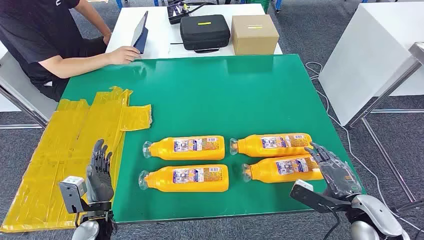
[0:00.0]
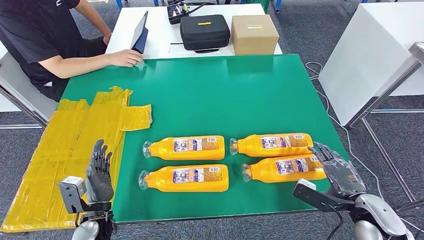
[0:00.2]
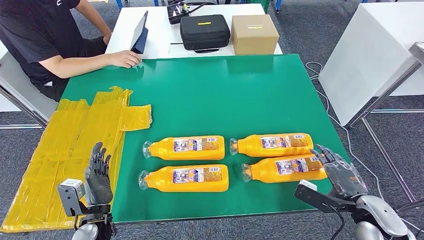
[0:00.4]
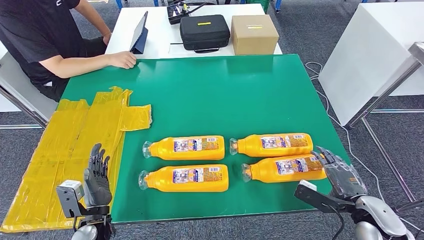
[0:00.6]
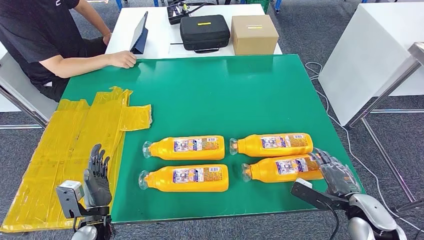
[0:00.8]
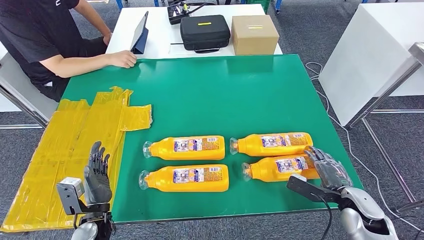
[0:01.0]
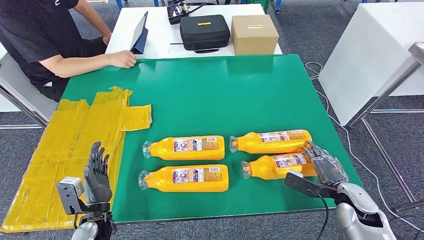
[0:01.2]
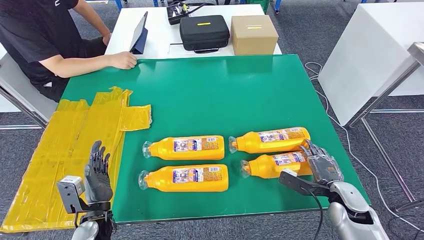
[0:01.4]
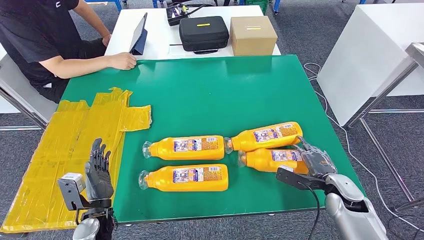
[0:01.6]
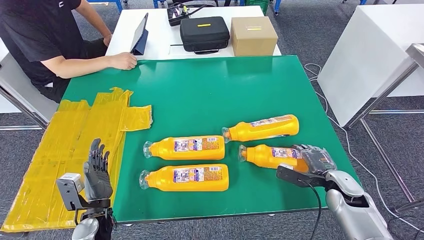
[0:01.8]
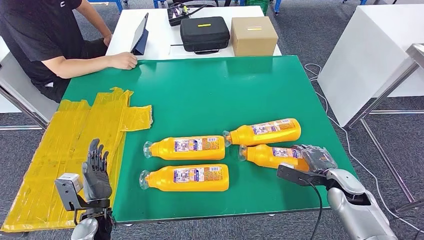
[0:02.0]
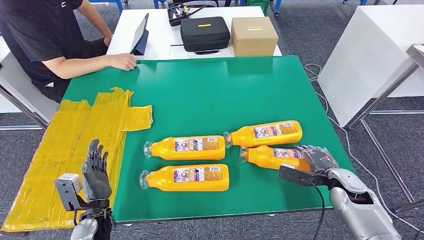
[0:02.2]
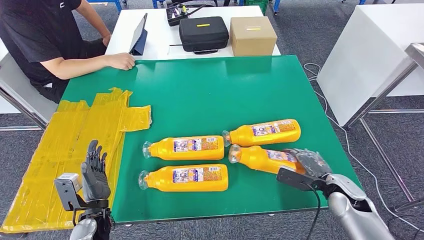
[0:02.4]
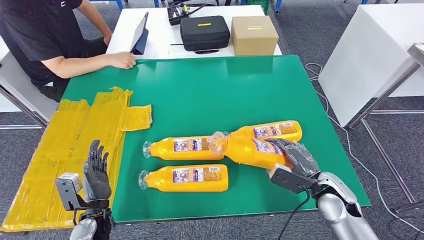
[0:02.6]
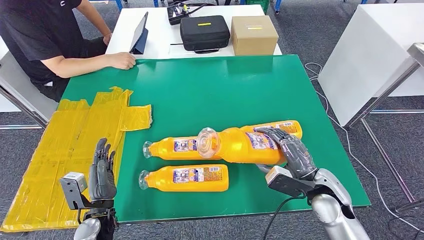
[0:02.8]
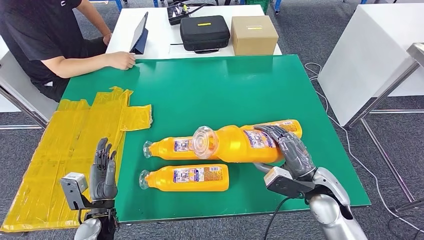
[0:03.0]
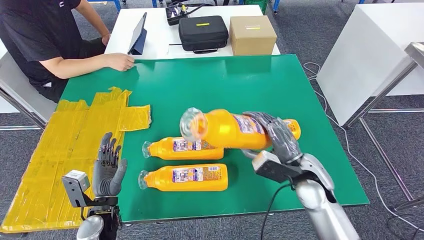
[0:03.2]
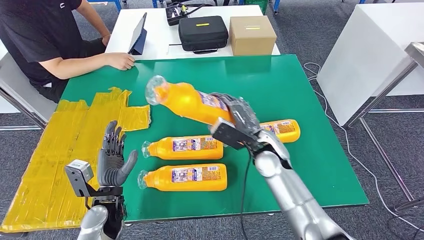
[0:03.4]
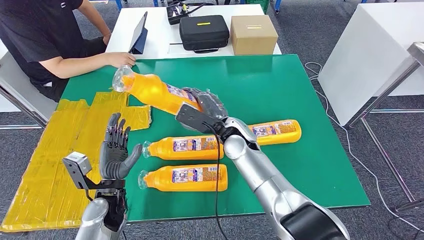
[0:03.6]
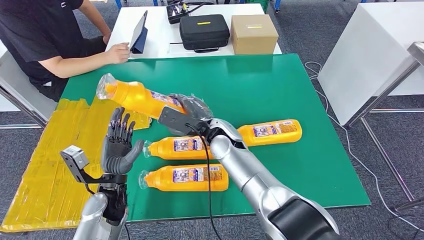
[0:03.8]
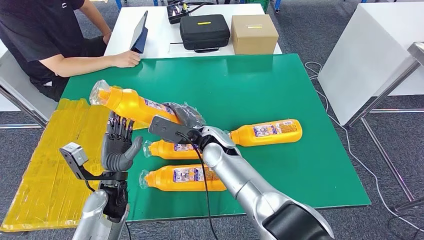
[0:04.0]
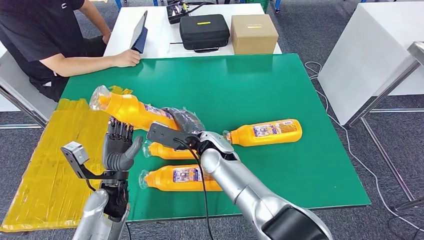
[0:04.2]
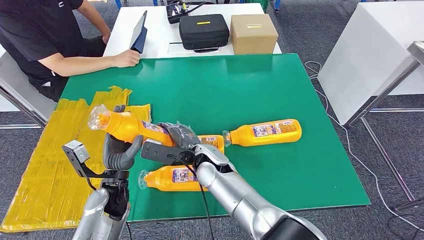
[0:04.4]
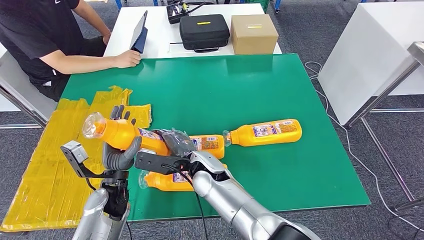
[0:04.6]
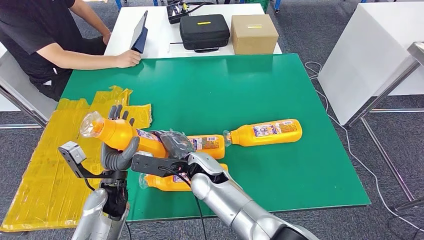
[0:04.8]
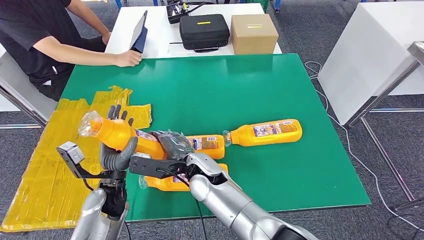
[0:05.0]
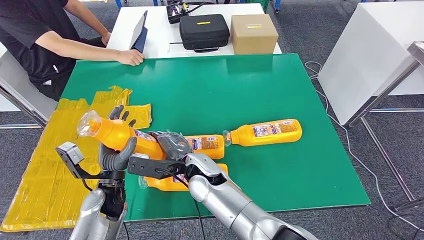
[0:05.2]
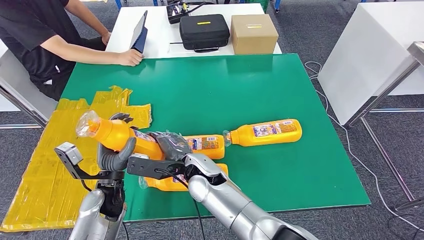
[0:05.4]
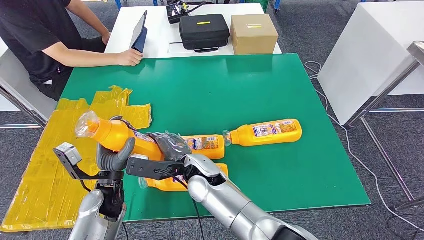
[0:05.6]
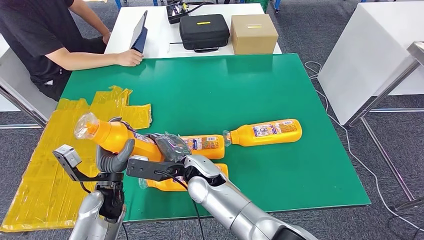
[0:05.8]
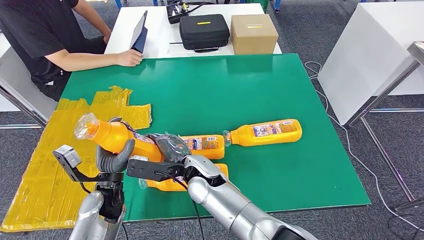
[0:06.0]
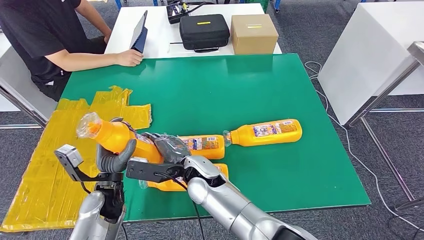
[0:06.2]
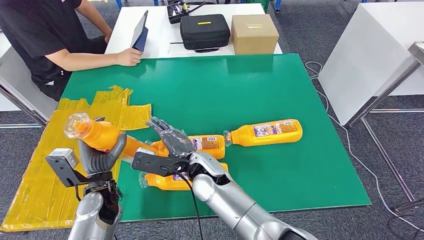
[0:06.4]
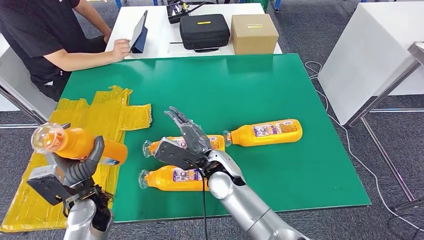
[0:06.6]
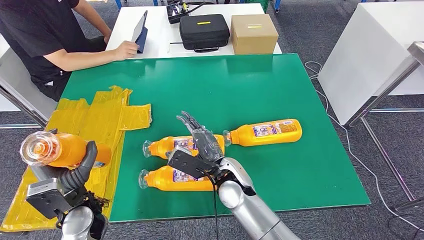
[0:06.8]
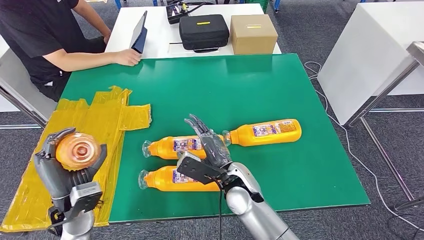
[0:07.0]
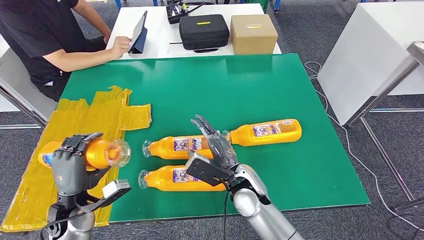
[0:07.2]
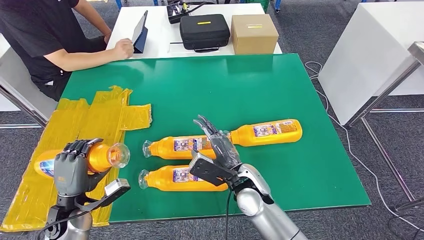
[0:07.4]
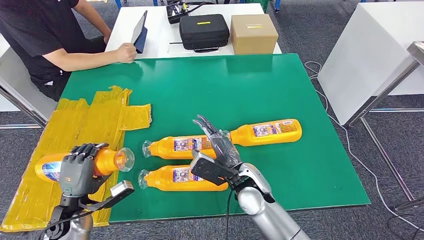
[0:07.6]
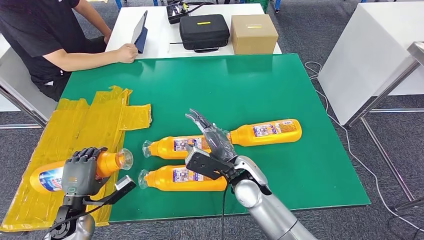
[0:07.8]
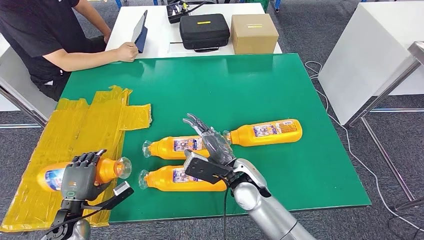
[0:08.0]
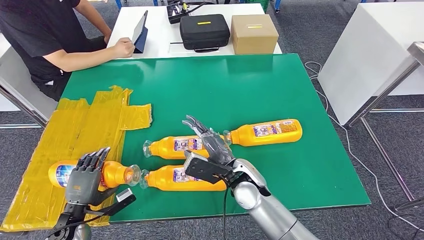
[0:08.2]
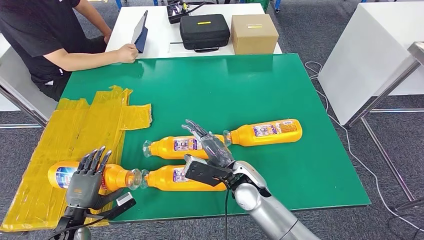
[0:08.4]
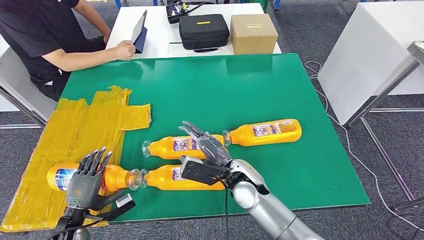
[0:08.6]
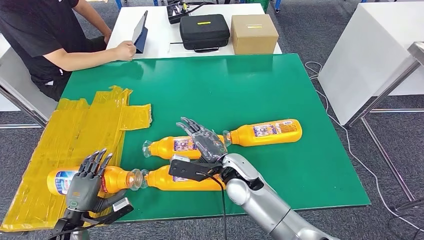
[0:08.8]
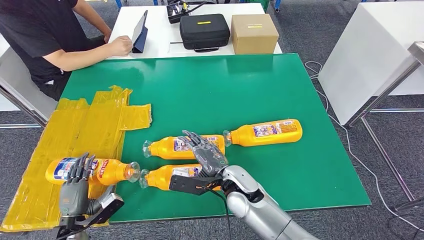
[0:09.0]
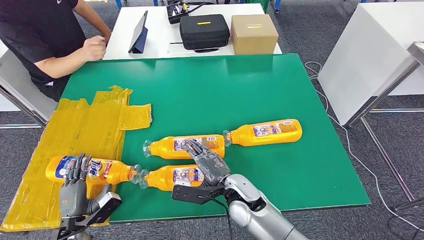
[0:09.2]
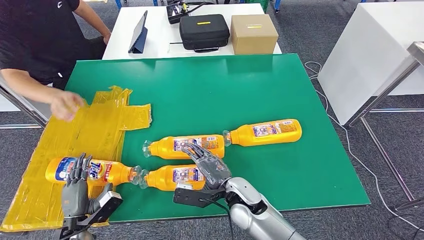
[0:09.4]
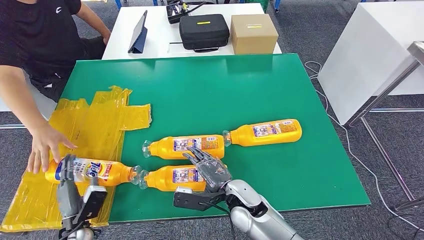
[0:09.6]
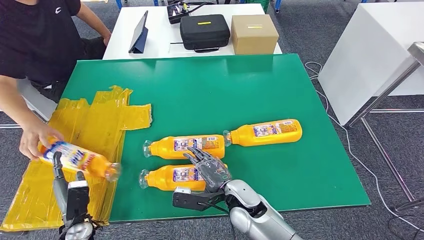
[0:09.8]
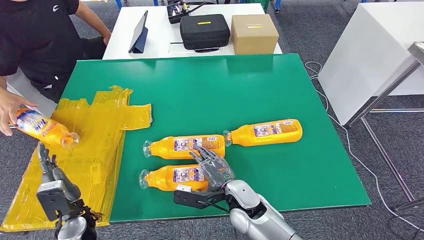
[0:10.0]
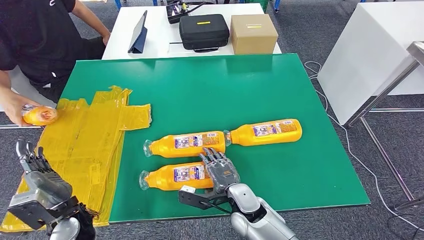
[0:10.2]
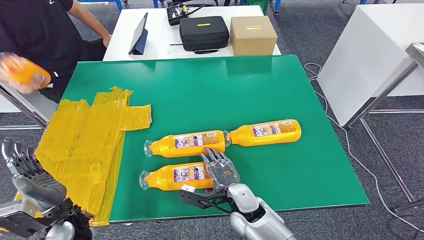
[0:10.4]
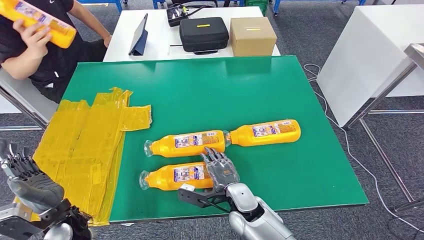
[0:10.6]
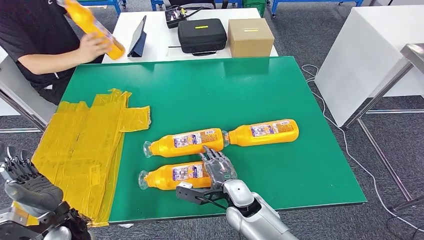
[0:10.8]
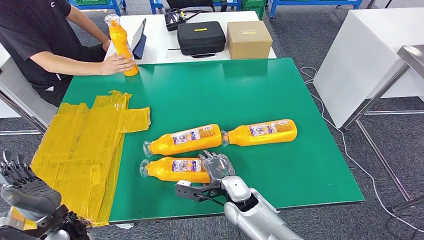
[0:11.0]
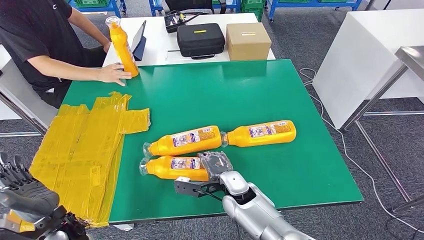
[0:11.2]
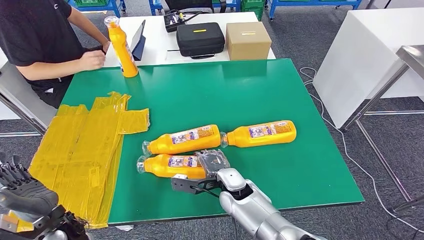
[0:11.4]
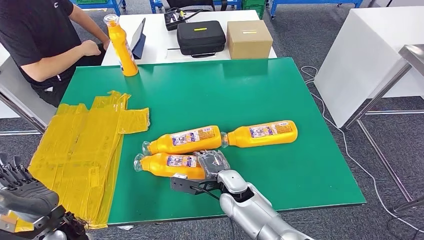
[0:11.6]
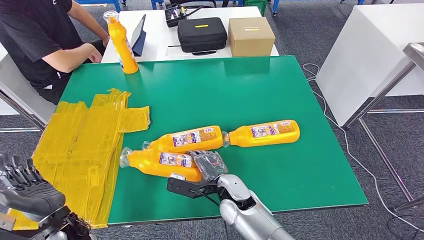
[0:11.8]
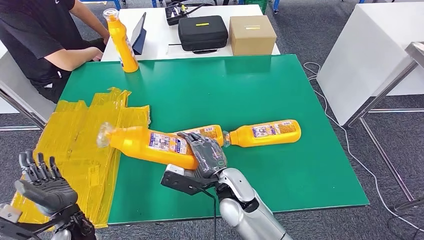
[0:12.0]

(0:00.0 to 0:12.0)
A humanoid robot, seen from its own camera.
Step, 0:00.0 - 0:03.8: Take the bottle from the table.
Step, 0:04.0 - 0:10.0: Flip the bottle to face forward.
0:01.6 - 0:03.0: The right hand moves to the left and upward, about 15 cm.
0:04.4 - 0:06.0: The hands stay close to where they were, moving slightly.
0:06.0 - 0:07.6: The left hand moves to the left, some 10 cm; the right hand is displaced to the right by approximately 10 cm.
0:07.6 - 0:09.0: The left hand heads downward, covering some 10 cm.

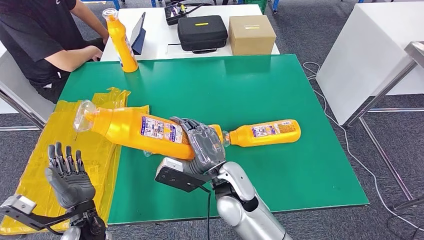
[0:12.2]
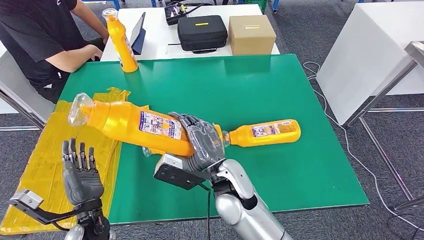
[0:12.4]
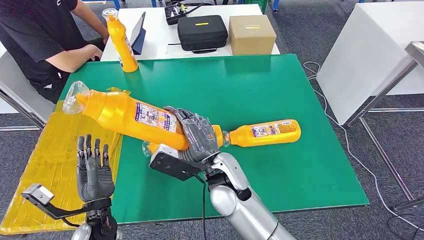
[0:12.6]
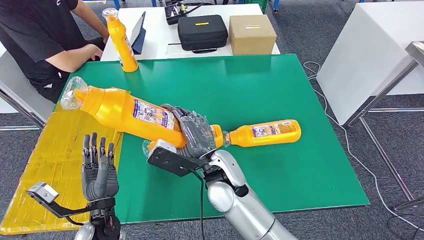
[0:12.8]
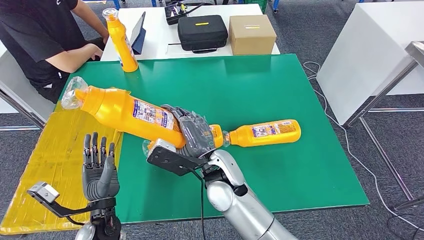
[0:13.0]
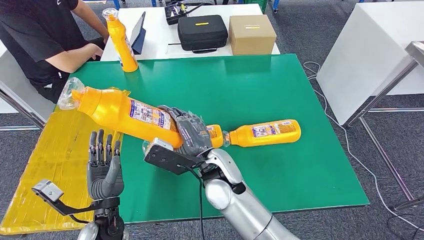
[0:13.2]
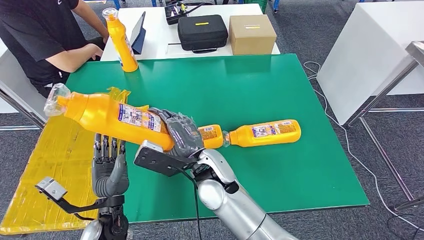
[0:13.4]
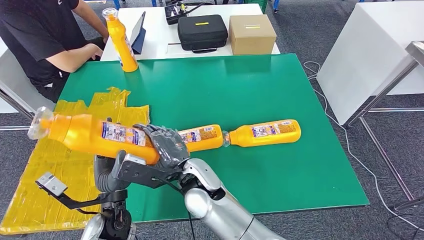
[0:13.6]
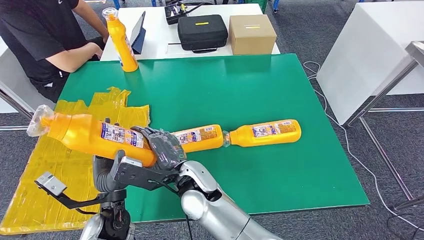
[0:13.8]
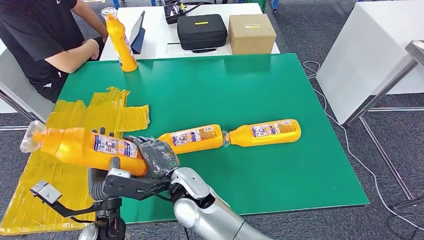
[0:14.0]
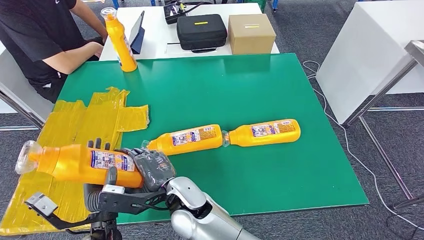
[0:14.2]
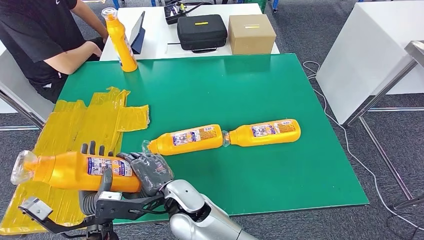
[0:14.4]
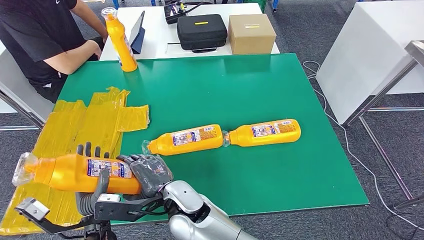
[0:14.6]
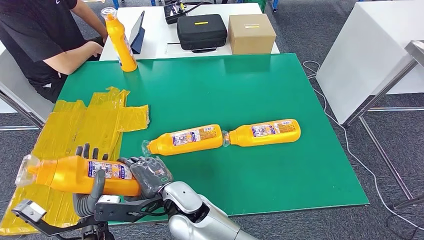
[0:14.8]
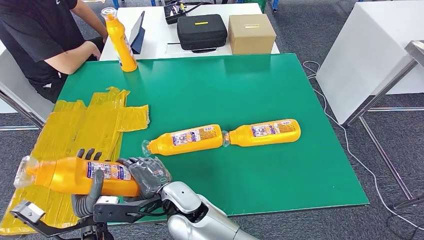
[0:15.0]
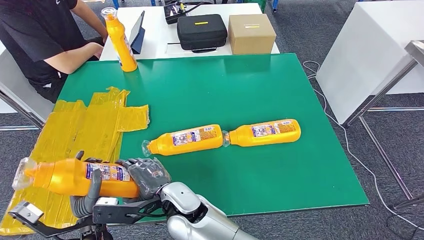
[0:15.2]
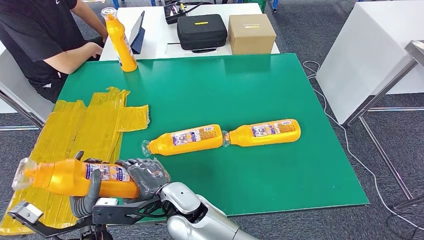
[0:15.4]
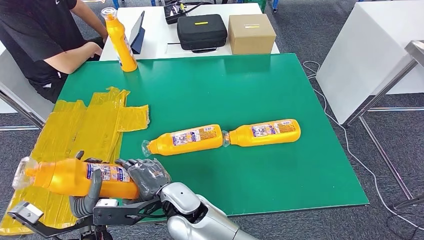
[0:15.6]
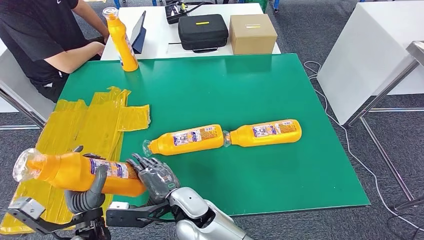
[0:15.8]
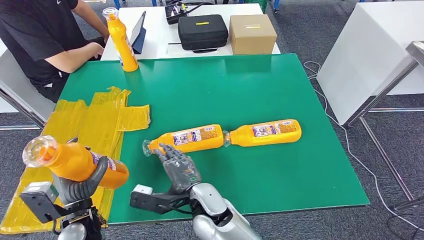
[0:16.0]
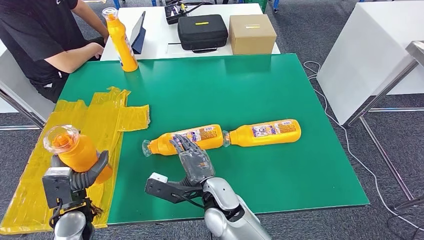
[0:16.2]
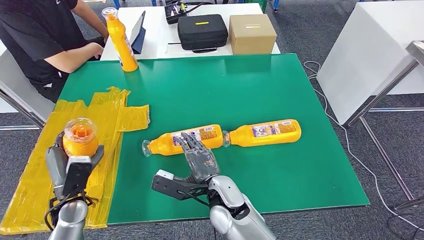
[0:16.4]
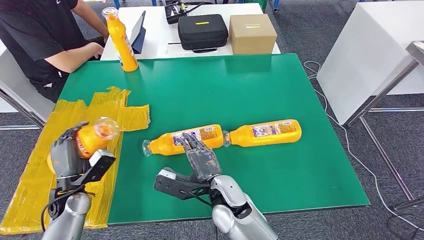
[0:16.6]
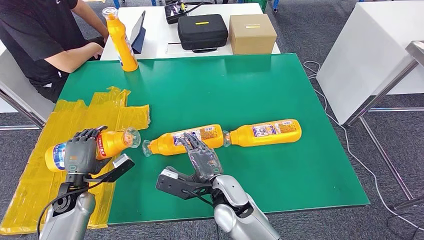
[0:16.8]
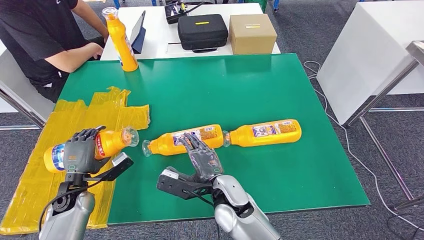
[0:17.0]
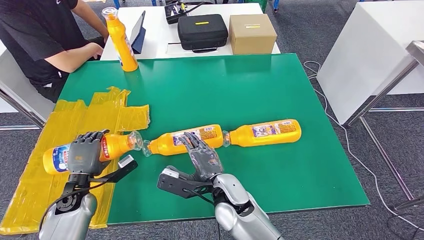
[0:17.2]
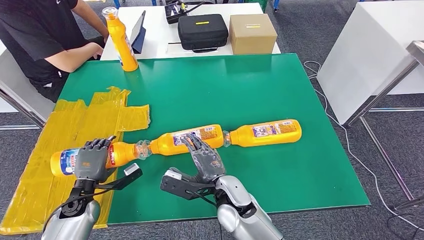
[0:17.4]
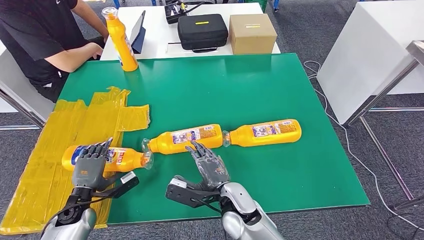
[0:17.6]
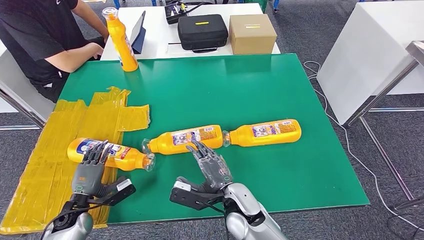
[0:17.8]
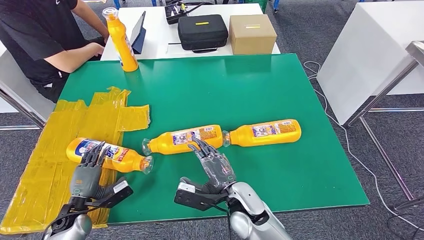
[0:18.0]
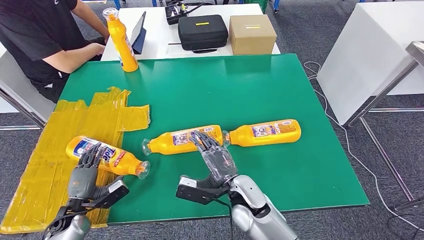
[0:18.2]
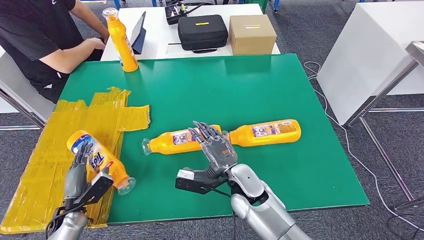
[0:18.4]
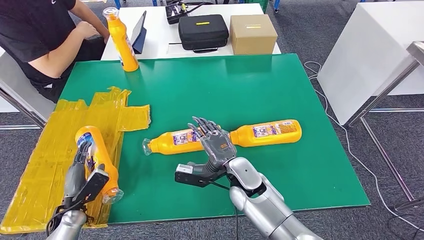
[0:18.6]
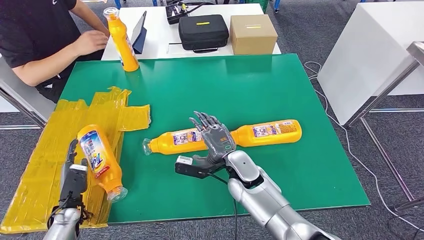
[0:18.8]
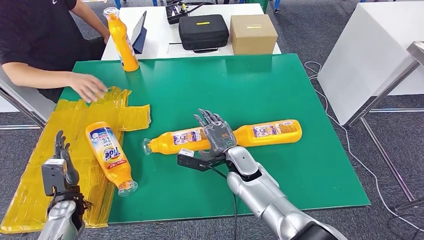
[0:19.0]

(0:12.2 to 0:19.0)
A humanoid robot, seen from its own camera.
Step, 0:12.2 - 0:15.4: Pick up the bottle from the table.
0:13.6 - 0:15.0: The right hand changes place by some 10 cm; the left hand changes place by approximately 5 cm.
0:15.0 - 0:16.2: The right hand is displaced to the right by approximately 10 cm. The left hand shifts roughly 10 cm to the left and forward.
0:16.2 - 0:17.6: The left hand goes roughly 5 cm downward.
